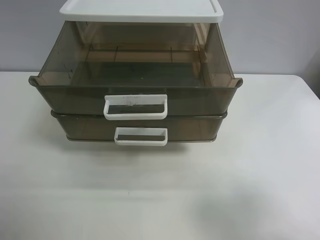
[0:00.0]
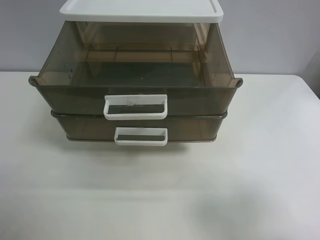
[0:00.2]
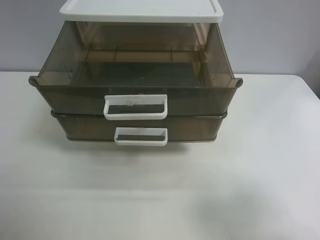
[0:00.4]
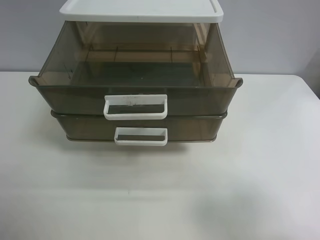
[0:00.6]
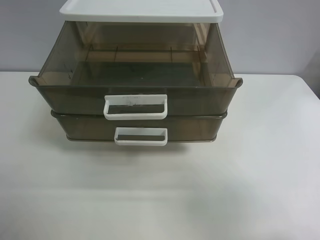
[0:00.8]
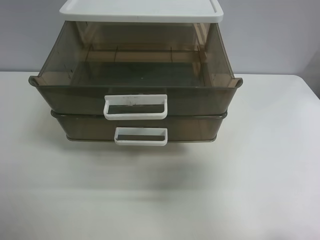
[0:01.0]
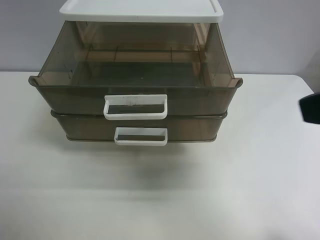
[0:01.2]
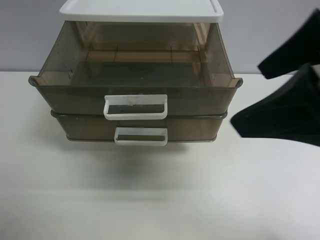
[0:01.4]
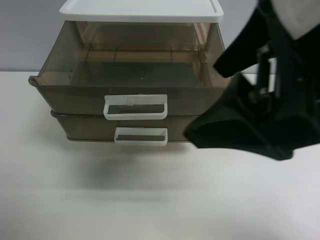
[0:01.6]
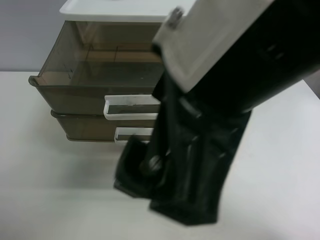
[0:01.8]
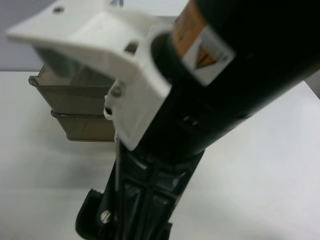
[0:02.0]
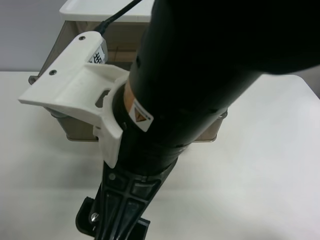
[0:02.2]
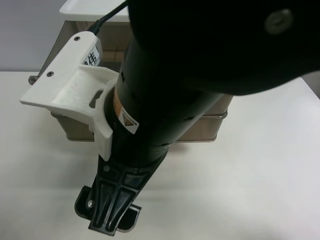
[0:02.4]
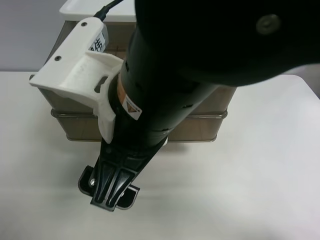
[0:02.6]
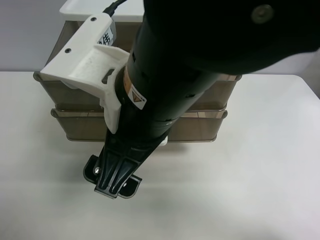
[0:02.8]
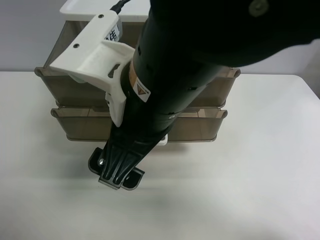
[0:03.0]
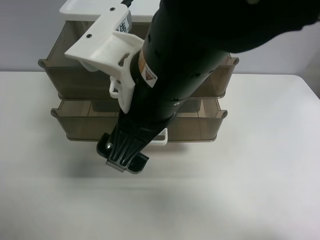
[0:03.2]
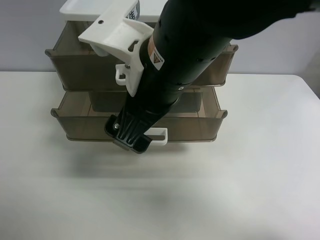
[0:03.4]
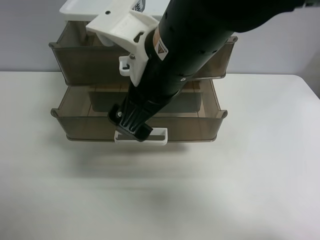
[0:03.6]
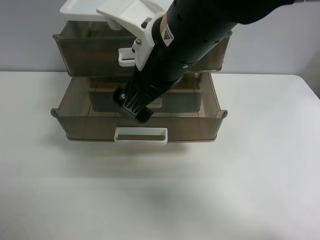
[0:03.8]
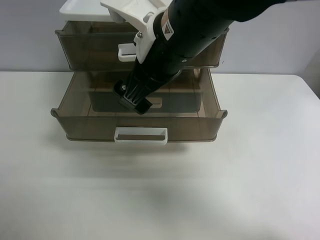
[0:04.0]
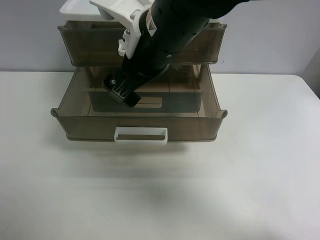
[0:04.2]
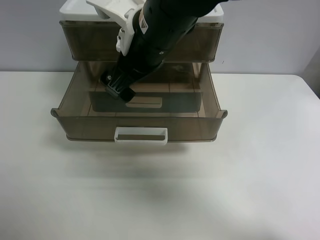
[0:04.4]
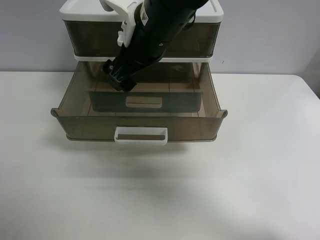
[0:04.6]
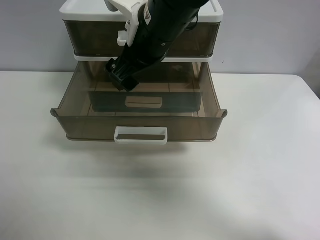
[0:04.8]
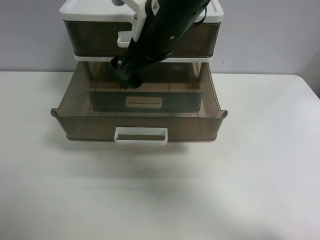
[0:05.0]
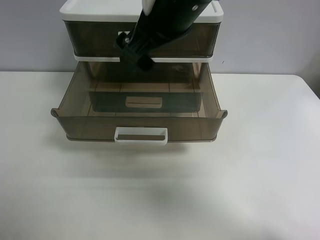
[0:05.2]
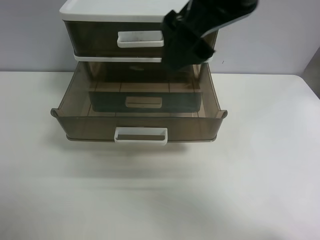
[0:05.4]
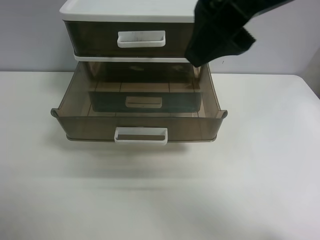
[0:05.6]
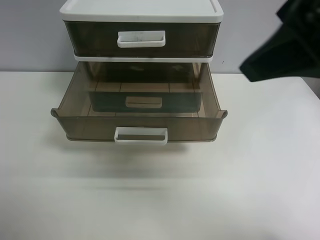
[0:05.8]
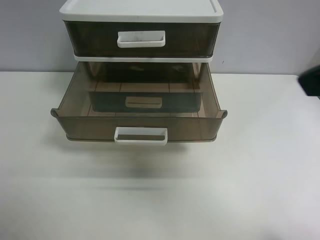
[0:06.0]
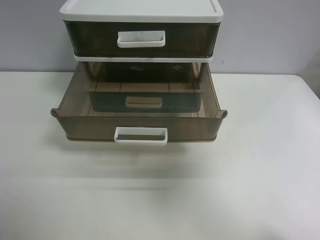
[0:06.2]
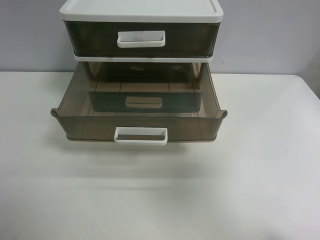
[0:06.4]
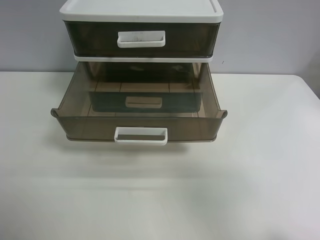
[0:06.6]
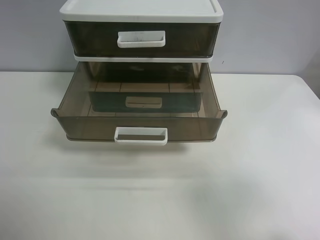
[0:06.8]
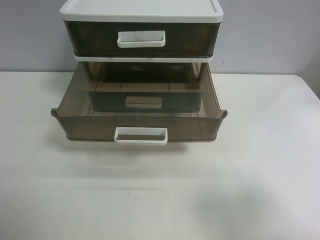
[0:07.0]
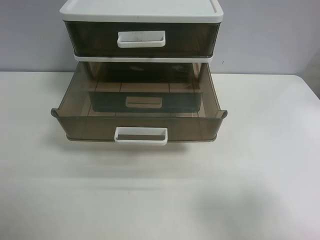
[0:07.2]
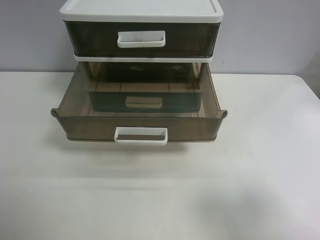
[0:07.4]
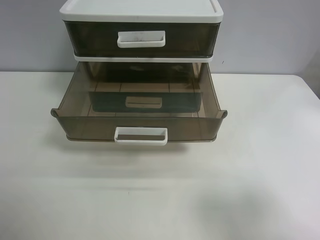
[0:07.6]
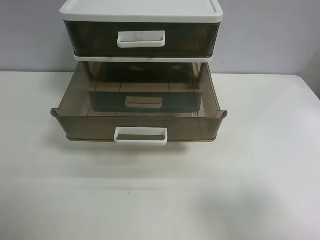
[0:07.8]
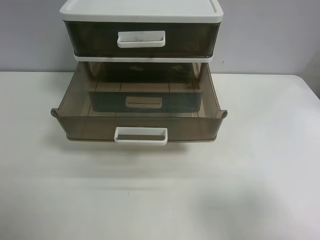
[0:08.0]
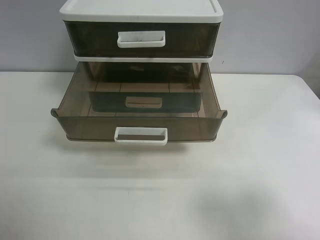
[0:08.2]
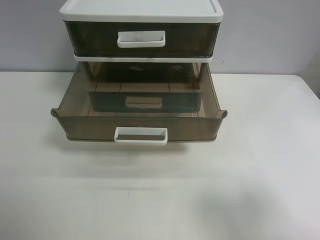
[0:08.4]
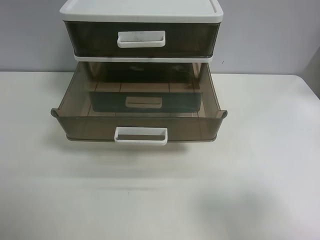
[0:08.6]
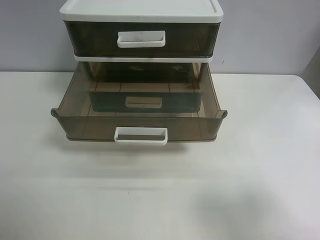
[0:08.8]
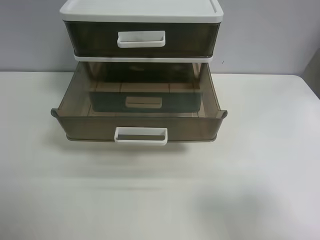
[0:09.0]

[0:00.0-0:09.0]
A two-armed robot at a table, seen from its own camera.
Task of the whole recording: close the top drawer.
Step, 0:00.0 to 0:02.6: Use the right gripper to touch the topmost layer of the storage cabinet.
Step, 0:02.8 to 0:04.8: Push the top drawer closed.
0:00.0 to 0:01.6: The right gripper moves to the left, forward and upward, some 25 cm.
0:01.6 to 0:03.0: The right gripper shifts roughly 15 cm to the left and downward.
0:03.0 to 0:04.4: The right gripper is displaced forward by about 10 cm.
0:04.4 to 0:06.0: The right gripper is displaced to the right, backward and upward by approximately 30 cm.
0:06.0 to 0:07.6: The right gripper goes roughly 15 cm downward, backward and to the right.
0:07.6 to 0:09.0: Both grippers stay put.
